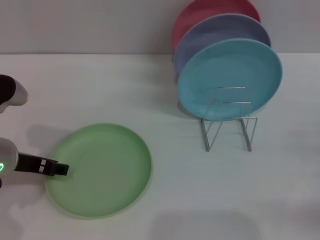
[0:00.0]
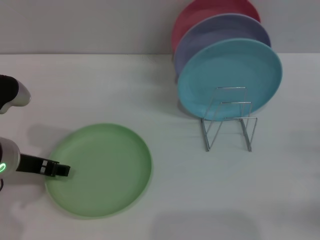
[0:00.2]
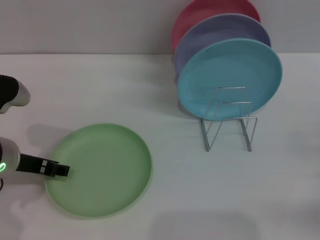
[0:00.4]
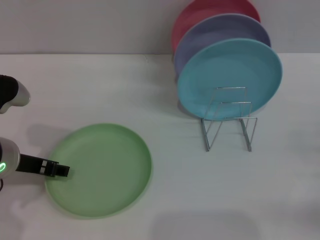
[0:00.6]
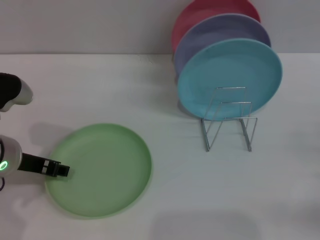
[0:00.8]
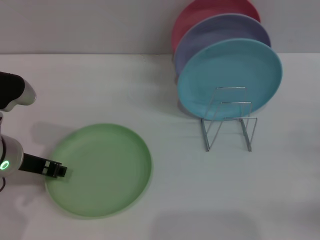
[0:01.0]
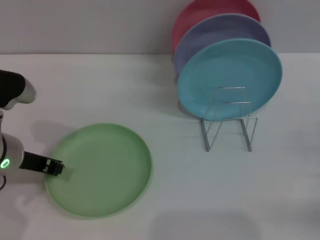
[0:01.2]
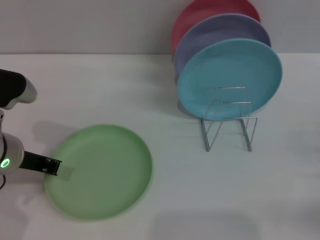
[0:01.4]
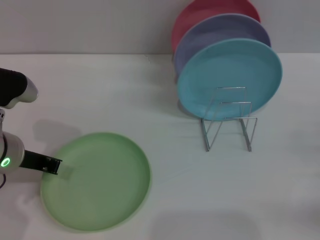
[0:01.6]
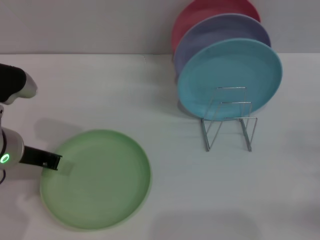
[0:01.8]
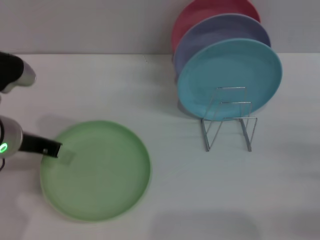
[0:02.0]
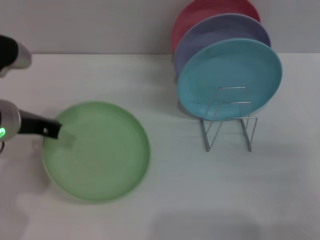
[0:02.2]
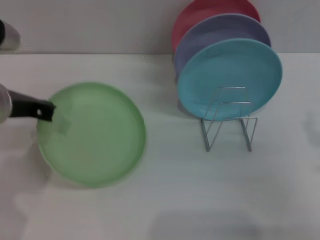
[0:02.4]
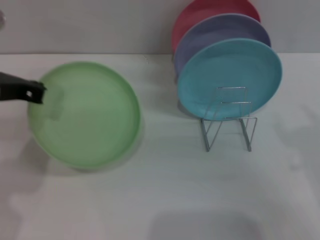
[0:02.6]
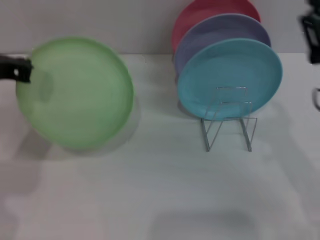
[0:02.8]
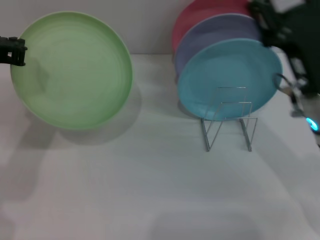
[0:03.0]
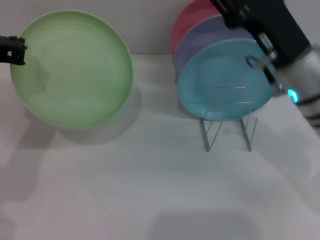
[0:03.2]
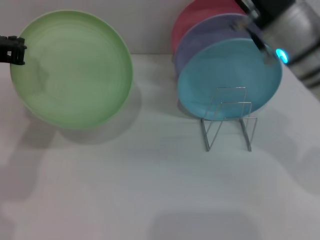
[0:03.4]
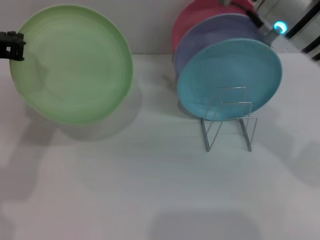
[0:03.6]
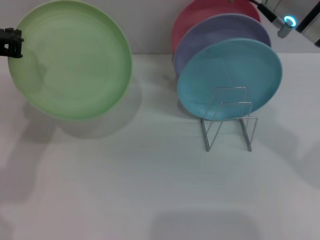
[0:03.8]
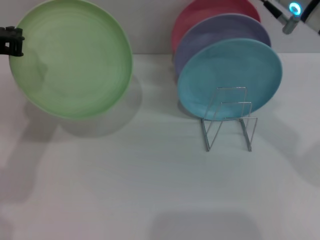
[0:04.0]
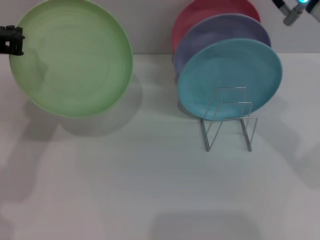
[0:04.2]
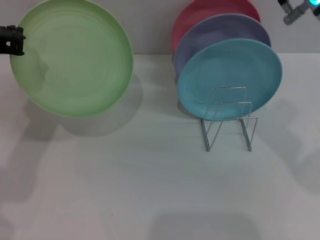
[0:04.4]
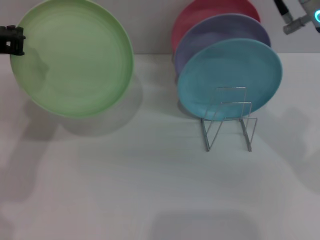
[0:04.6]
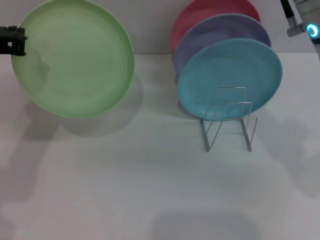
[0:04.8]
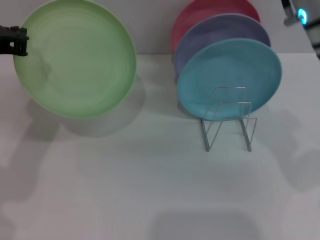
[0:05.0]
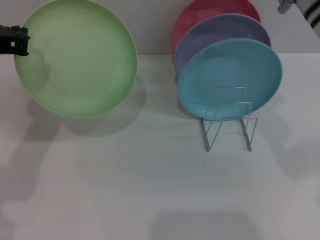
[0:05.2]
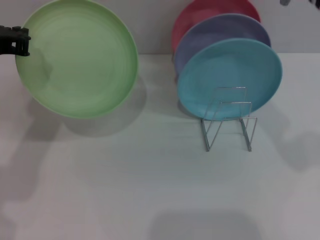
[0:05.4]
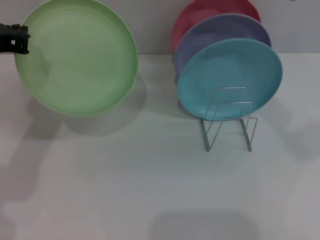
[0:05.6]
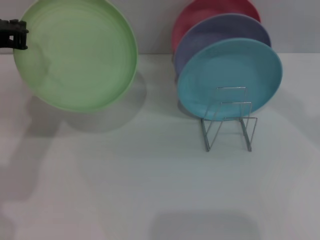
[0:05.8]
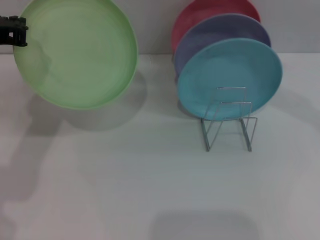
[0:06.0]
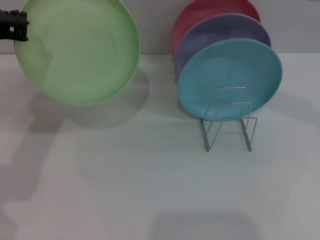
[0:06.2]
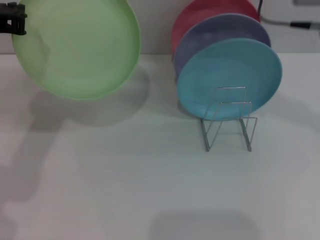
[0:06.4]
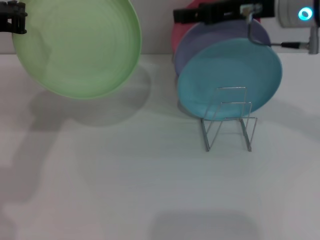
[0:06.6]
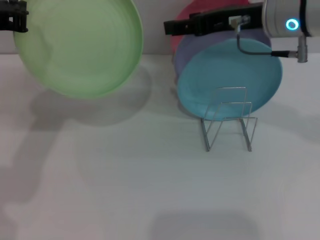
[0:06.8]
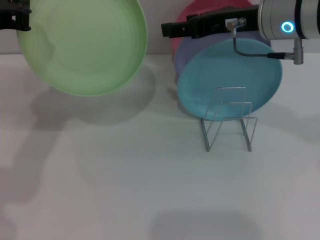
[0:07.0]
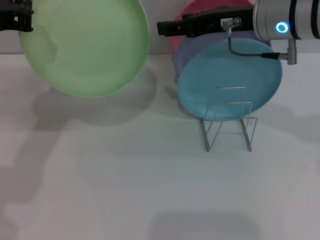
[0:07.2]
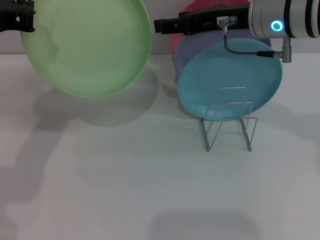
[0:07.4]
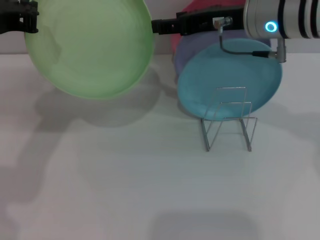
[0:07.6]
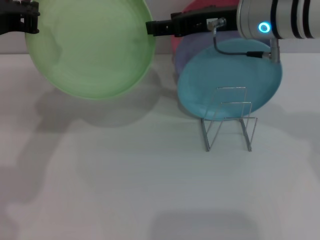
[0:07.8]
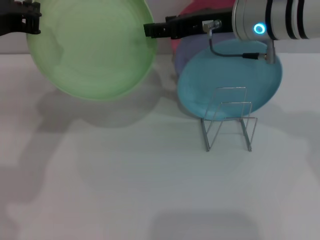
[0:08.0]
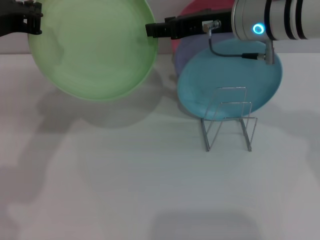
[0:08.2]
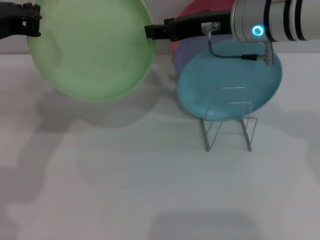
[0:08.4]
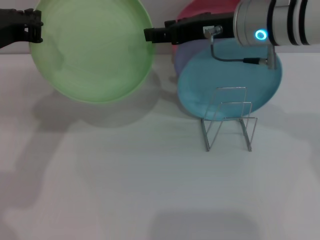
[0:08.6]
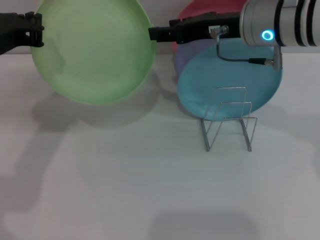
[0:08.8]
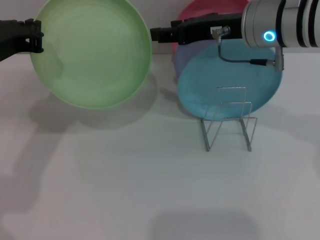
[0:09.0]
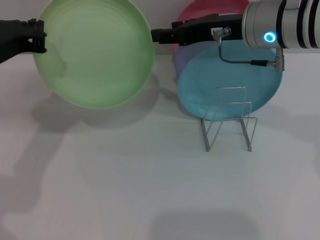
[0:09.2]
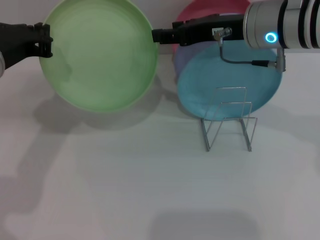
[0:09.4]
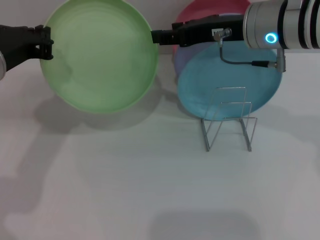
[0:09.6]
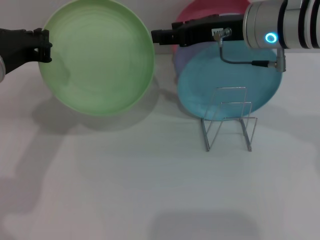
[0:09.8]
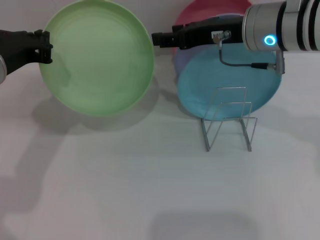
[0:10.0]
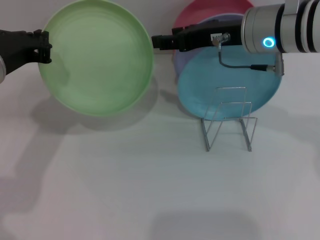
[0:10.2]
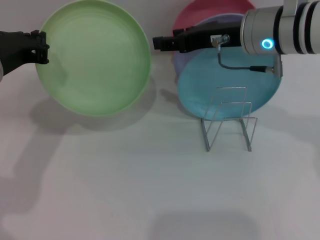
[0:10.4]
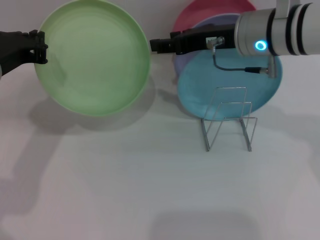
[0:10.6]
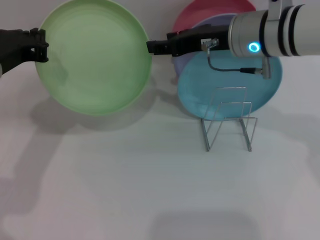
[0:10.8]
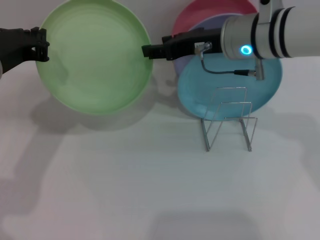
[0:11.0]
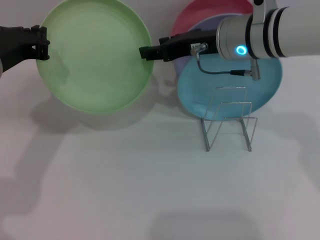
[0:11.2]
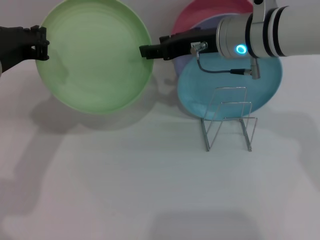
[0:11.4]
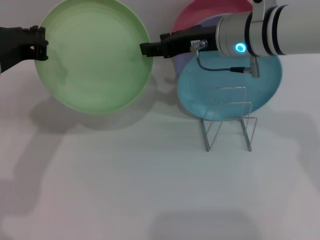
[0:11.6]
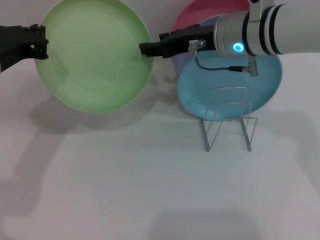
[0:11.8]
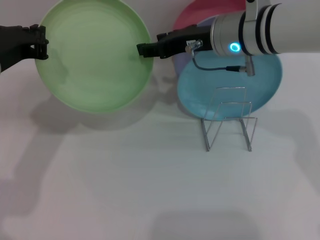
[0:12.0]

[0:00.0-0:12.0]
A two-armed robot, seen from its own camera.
Task of the whole recording: Grip the plate with one hand, pass it to the other, then set it on the shelf.
Step, 0:00.0 to 0:02.6: Pick up the plate with the left gripper.
0:00.0 to 0:01.6: The left gripper closes its fingers.
0:01.6 to 0:03.0: The right gripper is displaced to the left, upward and forward by some 20 cm, while the left gripper moves upward, approximately 10 cm.
0:03.0 to 0:04.4: The right gripper goes about 15 cm upward.
0:04.4 to 0:06.0: The right gripper heads upward and forward, covering approximately 5 cm.
0:06.0 to 0:07.6: The right gripper heads downward, covering about 10 cm.
0:07.6 to 0:09.0: The grippers stay close to where they were, moving slightly.
0:09.0 to 0:12.0: The grippers make only small movements.

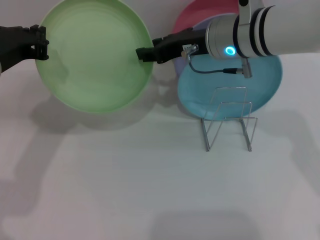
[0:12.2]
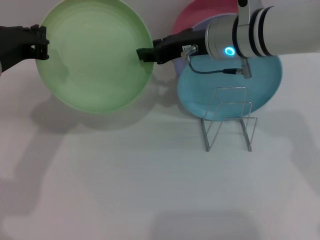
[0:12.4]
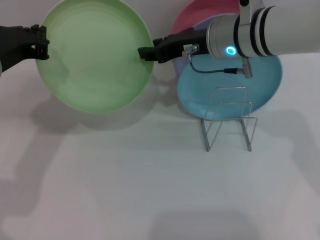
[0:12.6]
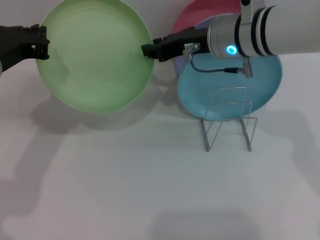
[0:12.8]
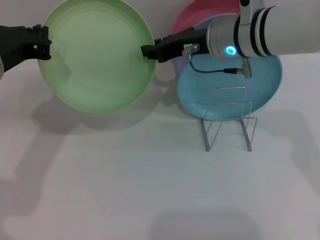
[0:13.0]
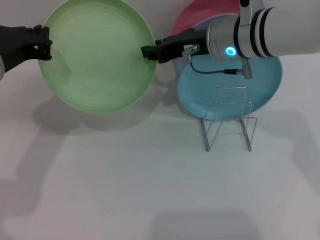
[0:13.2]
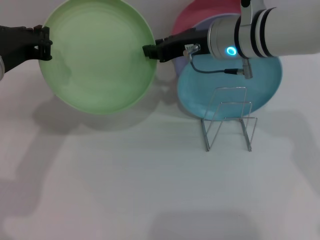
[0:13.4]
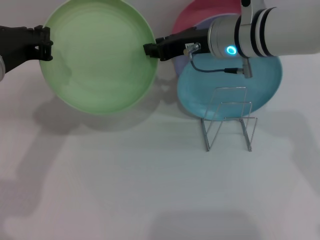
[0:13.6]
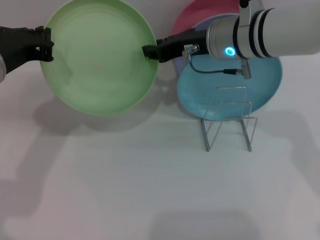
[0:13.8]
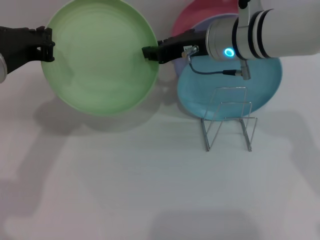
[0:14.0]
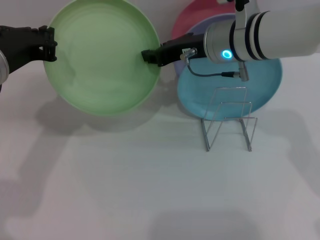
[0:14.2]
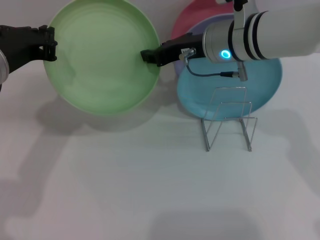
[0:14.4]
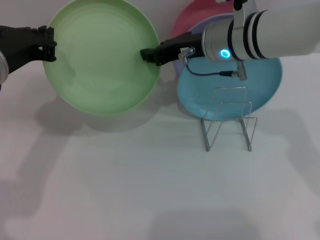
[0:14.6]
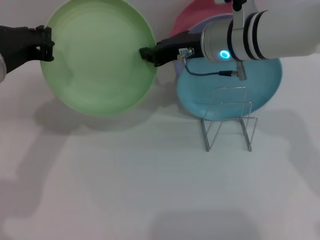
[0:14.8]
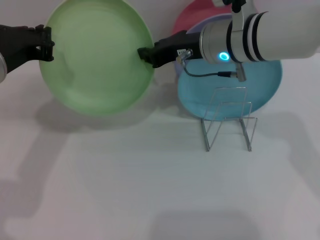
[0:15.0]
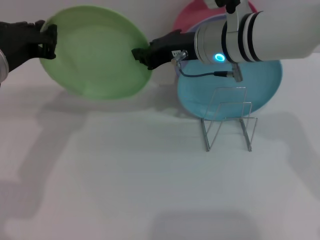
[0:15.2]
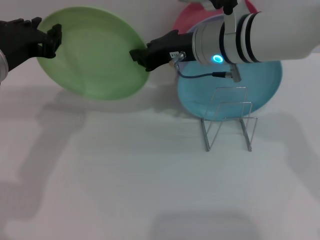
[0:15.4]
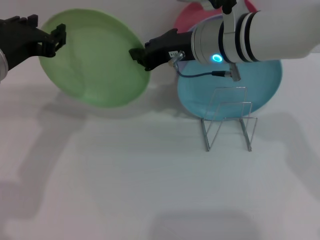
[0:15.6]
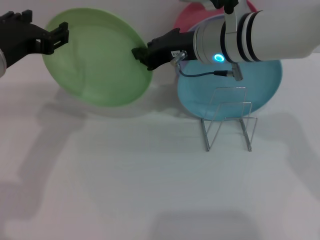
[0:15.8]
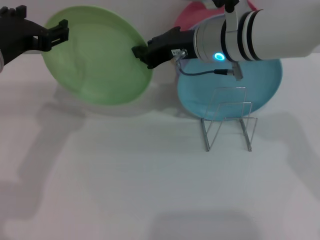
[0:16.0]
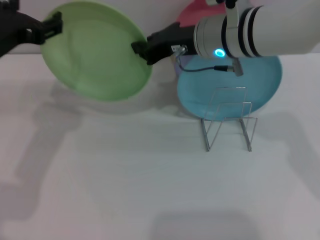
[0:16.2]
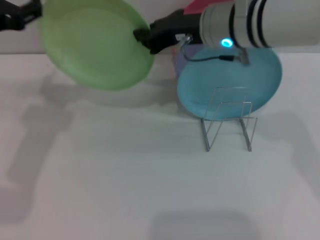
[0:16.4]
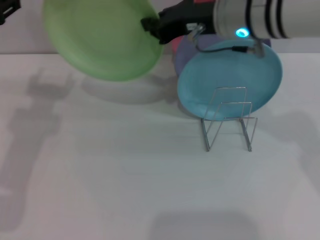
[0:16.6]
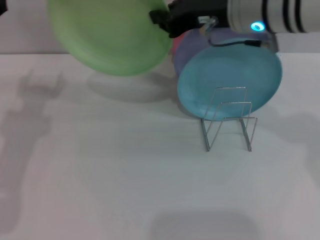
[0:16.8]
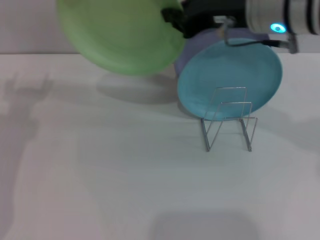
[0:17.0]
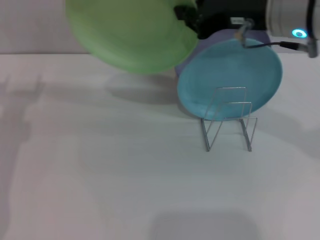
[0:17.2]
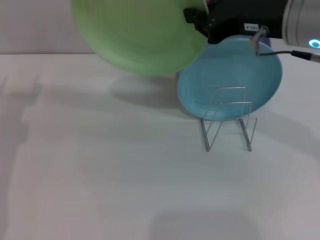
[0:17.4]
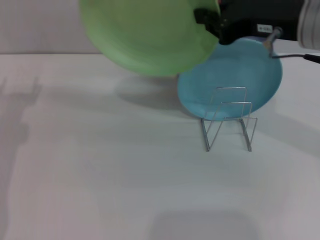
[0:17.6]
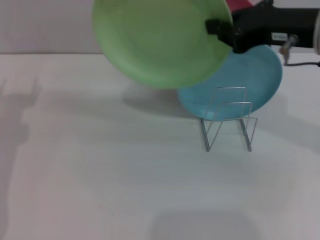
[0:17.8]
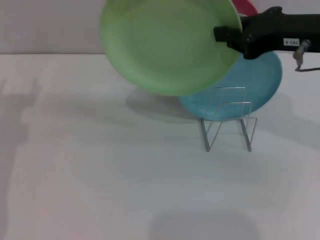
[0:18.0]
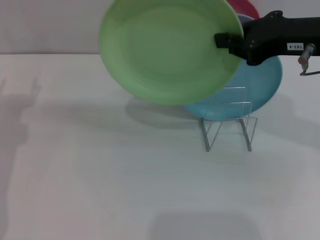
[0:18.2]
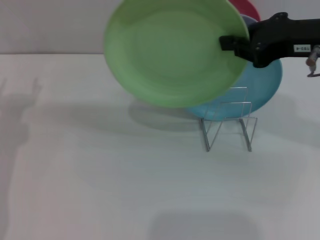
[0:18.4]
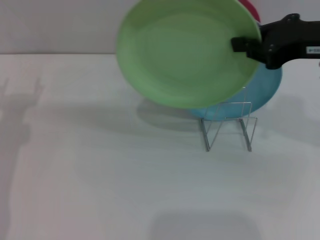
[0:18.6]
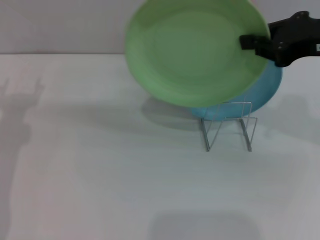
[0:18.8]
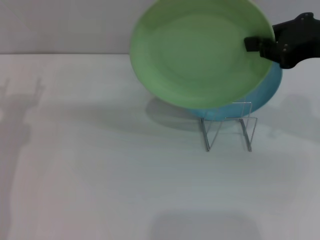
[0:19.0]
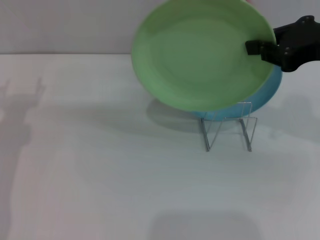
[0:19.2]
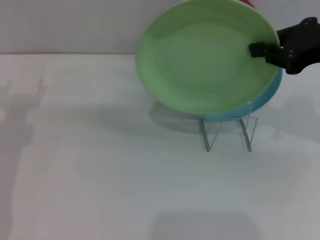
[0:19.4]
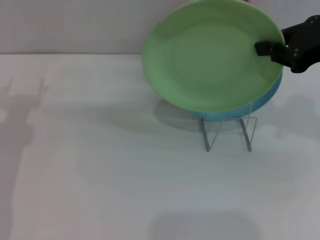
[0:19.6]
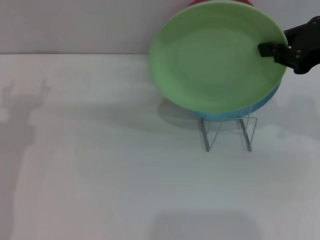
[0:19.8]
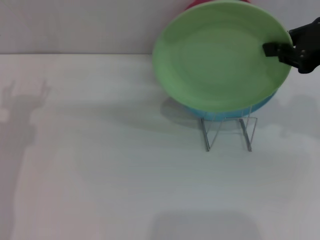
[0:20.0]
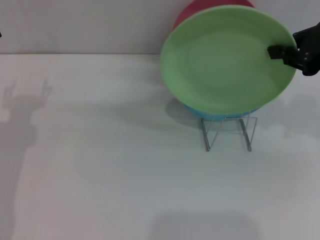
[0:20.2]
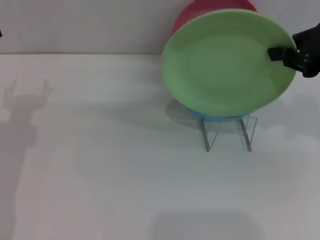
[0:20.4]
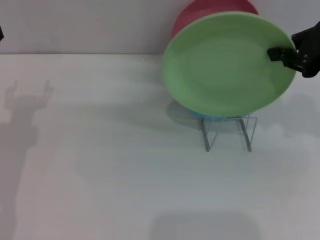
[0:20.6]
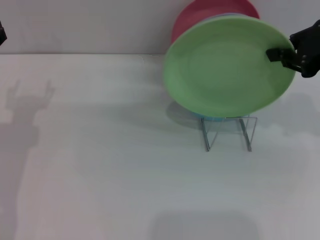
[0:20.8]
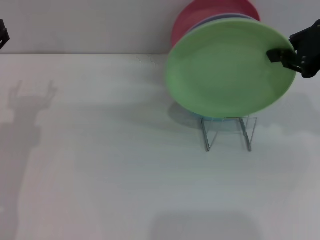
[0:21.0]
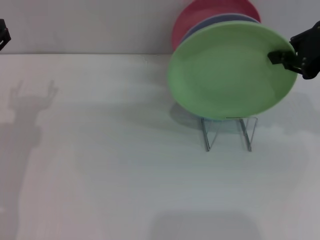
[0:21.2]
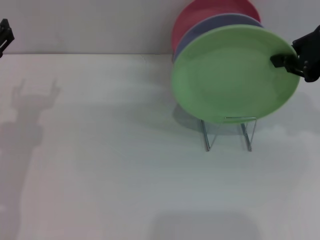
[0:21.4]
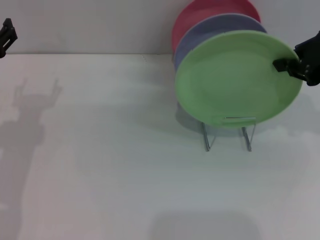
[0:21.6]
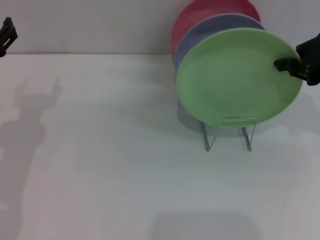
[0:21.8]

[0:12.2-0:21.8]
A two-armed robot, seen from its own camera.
Task of the whole recording: Grip the plate with one hand, pass it to the other, then set it on the shelf.
Step, 0:12.2 to 0:16.6: Pass the plate from the left gripper to the right gripper.
0:12.2 to 0:13.8: The right gripper closes.
0:13.8 to 0:15.4: The grippers make only small movements.
0:15.4 to 0:17.0: The right gripper heads upward and to the right, covering approximately 10 cm; the left gripper goes approximately 5 cm to the left, and opens.
0:17.0 to 0:18.6: The right gripper heads to the right, covering about 10 cm.
0:18.6 to 0:21.8: The grippers make only small movements.
